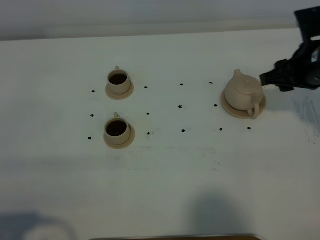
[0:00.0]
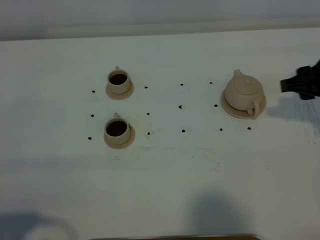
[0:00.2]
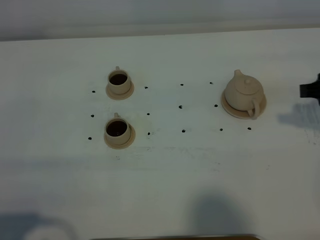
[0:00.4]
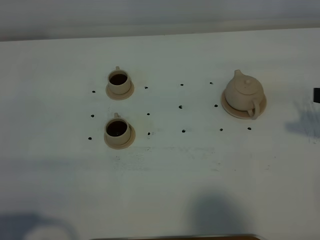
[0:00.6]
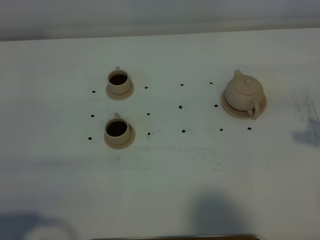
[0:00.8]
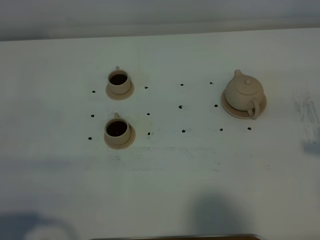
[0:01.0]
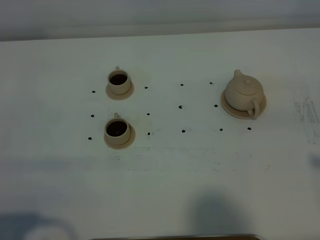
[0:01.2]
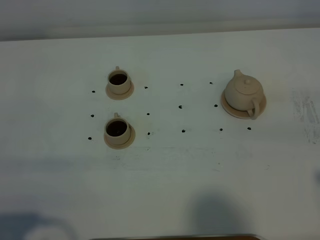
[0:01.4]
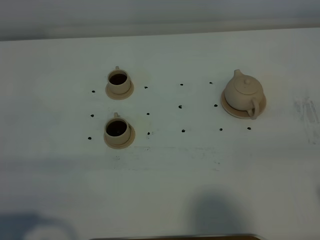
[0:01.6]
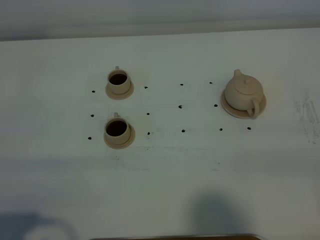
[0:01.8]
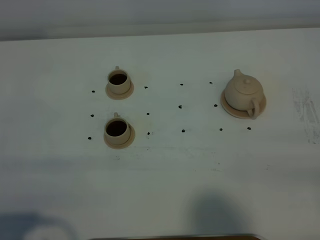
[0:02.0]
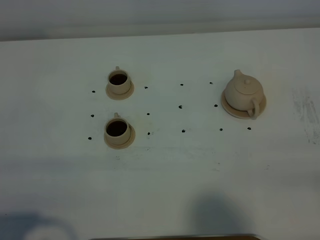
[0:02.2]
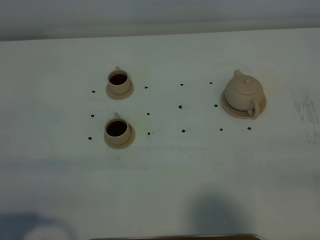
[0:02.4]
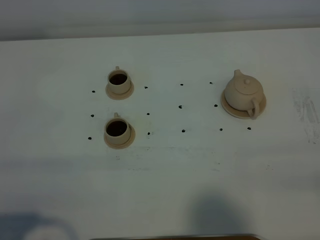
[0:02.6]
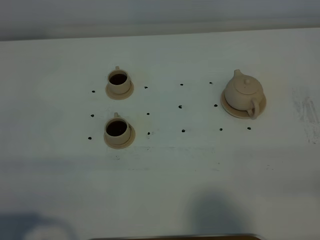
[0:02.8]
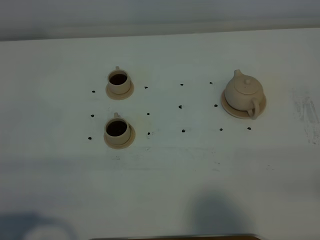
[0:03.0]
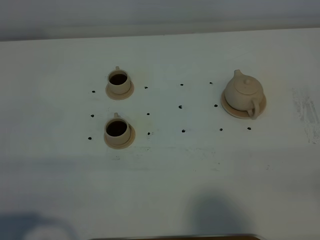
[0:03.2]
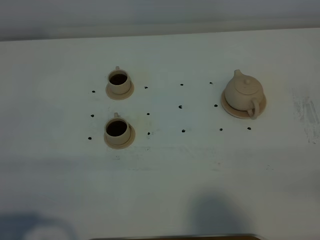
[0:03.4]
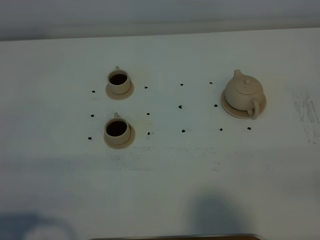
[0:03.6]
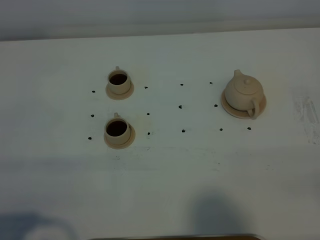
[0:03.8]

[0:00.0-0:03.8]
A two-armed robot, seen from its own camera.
Task of the whole recording: grasp the brown teapot and pour the tea into the two brown teacups one by one, put the brown teapot back in its original place.
0:00.0 to 0:01.2: The right gripper heads backward and upward, covering approximately 25 cm.

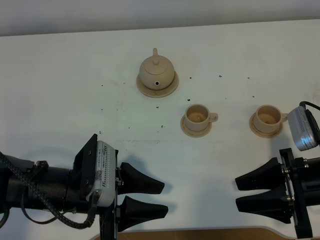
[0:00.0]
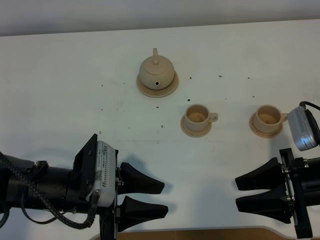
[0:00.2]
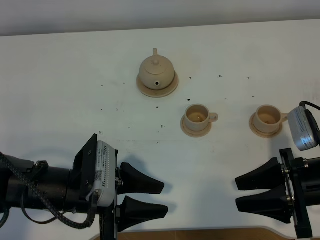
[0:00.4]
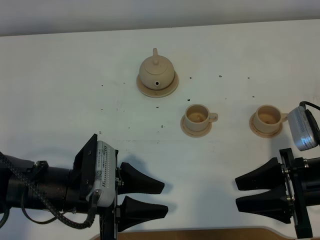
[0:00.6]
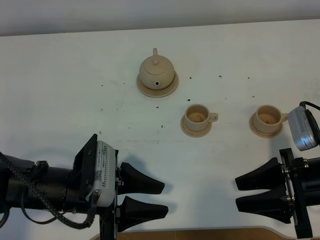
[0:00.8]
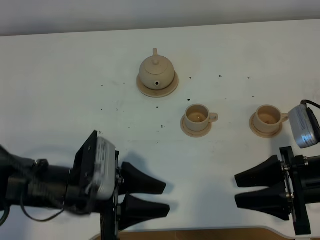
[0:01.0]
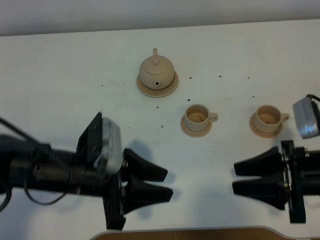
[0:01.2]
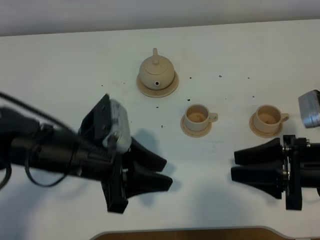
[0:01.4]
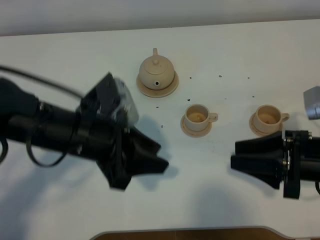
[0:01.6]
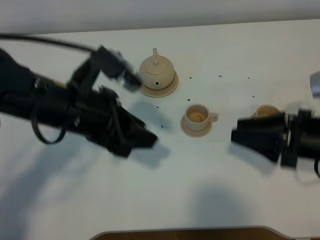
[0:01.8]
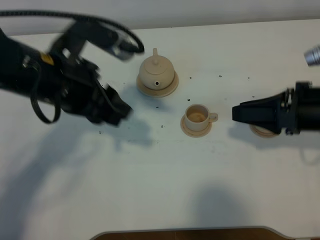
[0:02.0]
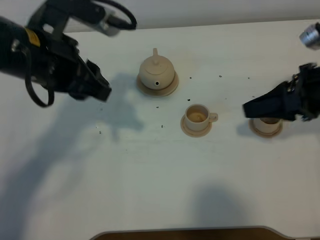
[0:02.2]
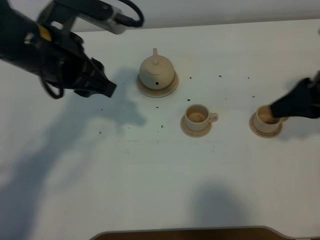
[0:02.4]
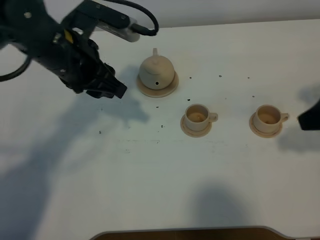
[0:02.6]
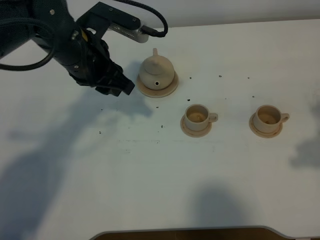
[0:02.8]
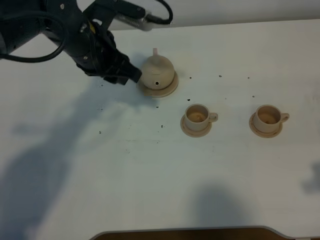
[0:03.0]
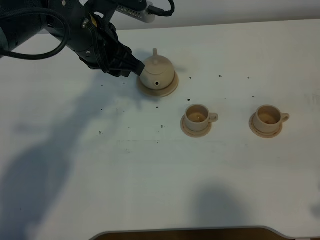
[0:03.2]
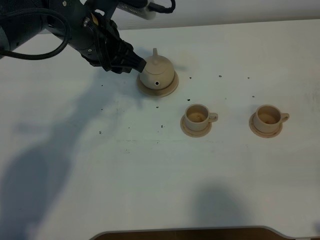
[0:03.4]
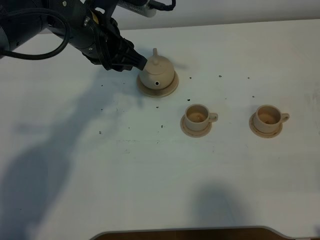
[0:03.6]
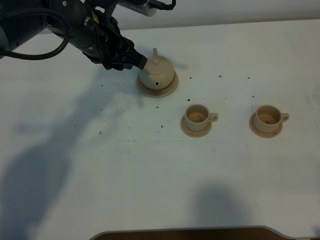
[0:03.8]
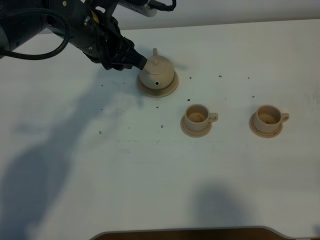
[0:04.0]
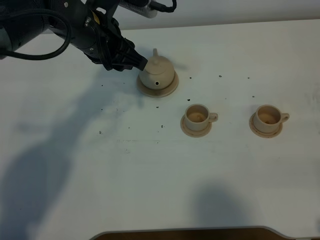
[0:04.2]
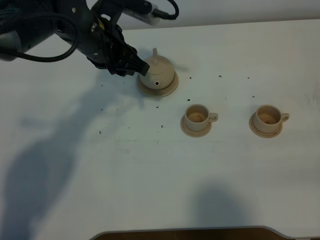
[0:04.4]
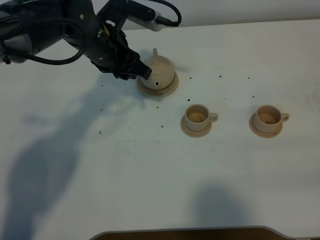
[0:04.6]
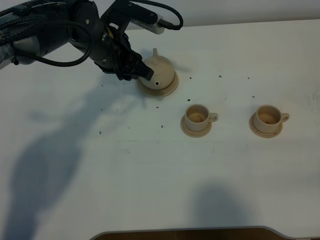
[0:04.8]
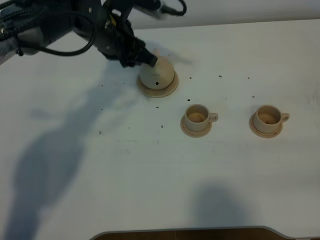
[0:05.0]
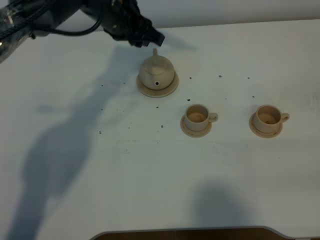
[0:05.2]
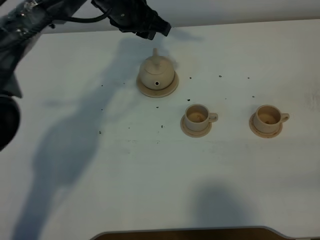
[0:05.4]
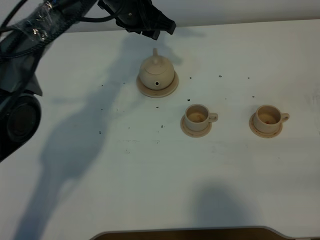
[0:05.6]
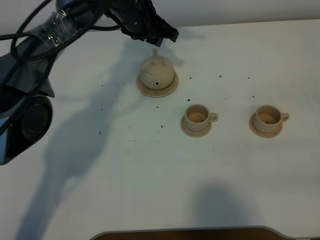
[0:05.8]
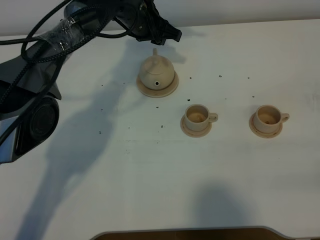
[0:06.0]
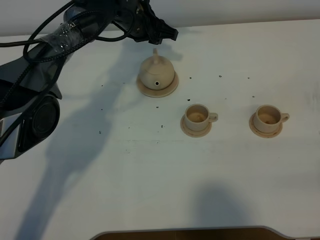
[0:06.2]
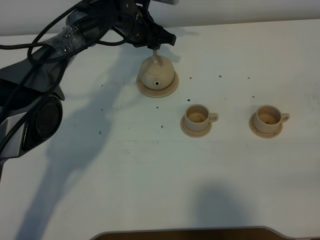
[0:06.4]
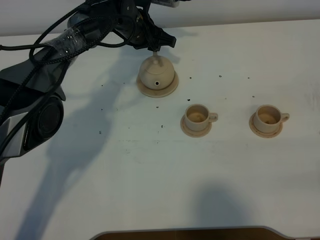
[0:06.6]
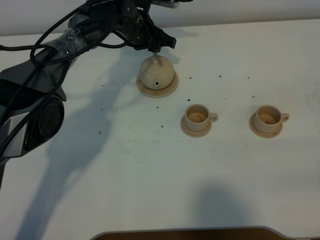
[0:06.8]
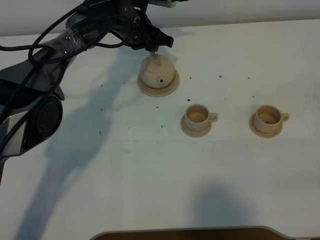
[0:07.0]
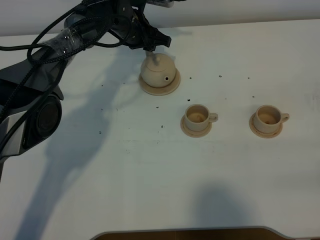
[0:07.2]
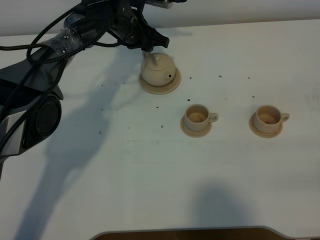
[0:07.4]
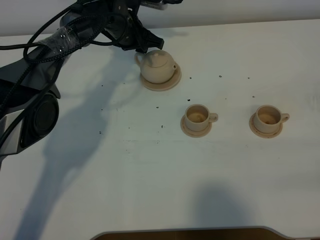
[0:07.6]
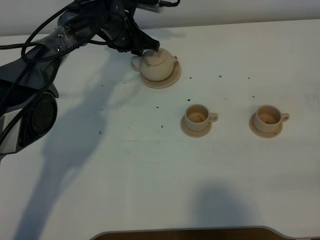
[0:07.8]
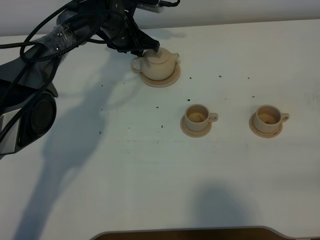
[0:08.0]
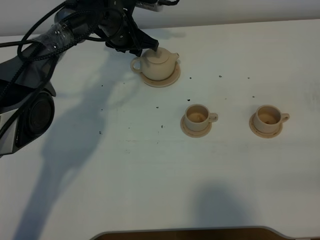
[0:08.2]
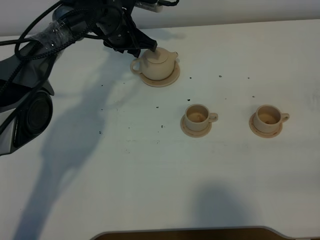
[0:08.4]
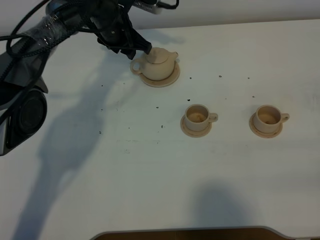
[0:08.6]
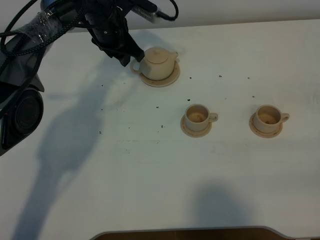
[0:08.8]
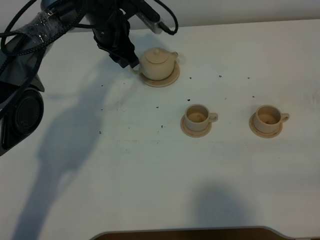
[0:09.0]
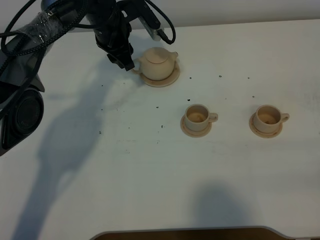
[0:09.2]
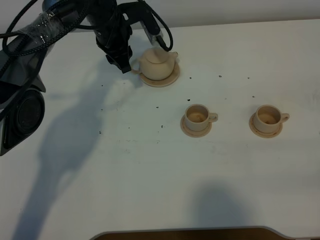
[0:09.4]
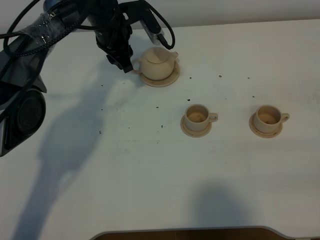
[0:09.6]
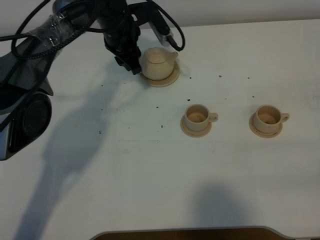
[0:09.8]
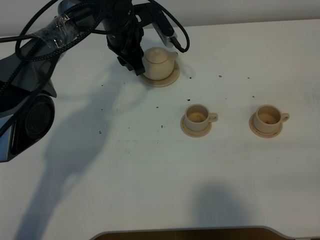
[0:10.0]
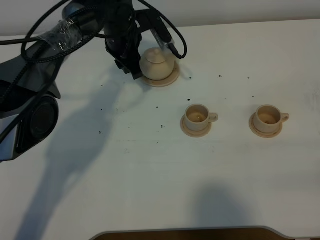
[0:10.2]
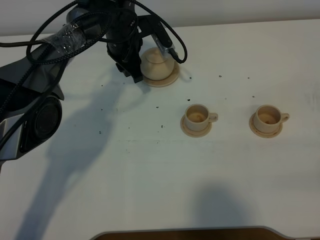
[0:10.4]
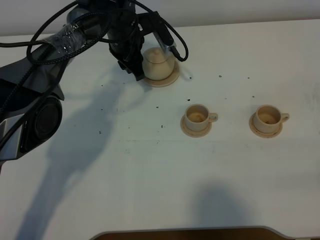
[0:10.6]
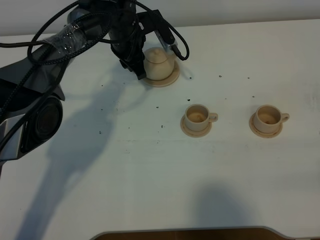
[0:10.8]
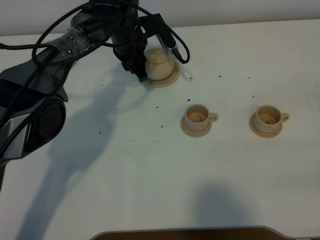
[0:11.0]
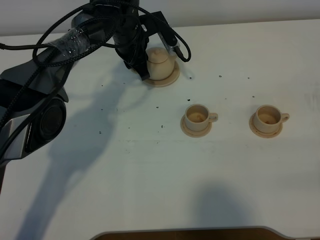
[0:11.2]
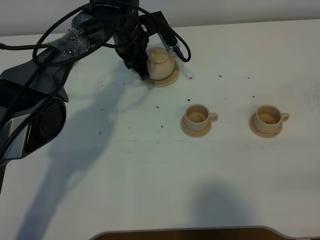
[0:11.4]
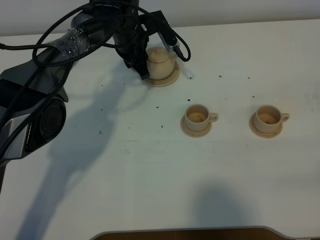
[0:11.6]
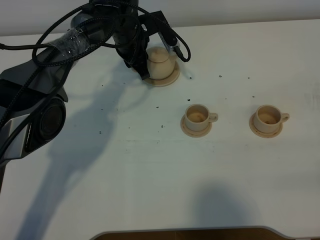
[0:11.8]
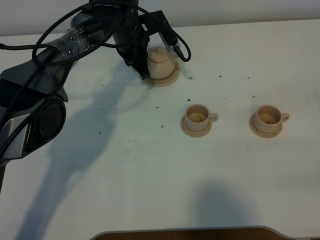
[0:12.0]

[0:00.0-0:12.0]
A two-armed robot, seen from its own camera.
Task of the whole recording: grasp the brown teapot and pour the tea into the two brown teacups one by one, put the brown teapot back in its original place.
0:00.0 to 0:01.6: The left gripper is displaced upward and forward by about 10 cm.
0:01.6 to 0:03.0: The right gripper goes some 15 cm upward and backward. The left gripper shifts about 15 cm forward.
0:03.0 to 0:04.4: The right gripper is displaced backward by some 10 cm.
0:04.4 to 0:06.0: The left gripper heads forward, to the right and downward, covering some 15 cm.
0:06.0 to 0:07.6: The left gripper ends up some 5 cm from where it was.
0:07.6 to 0:09.0: The left gripper ends up roughly 5 cm from where it was.
0:09.0 to 0:10.4: There are only small adjustments of the grippers.
0:10.4 to 0:12.0: The left gripper closes its fingers.

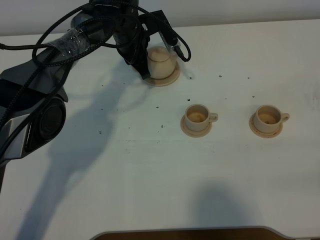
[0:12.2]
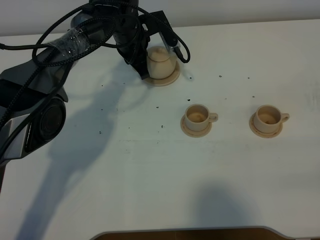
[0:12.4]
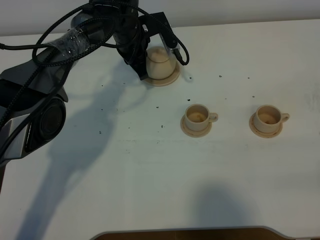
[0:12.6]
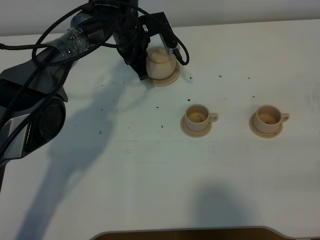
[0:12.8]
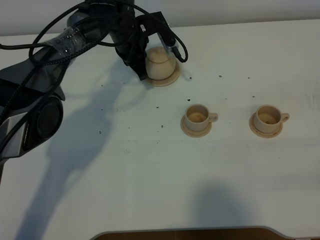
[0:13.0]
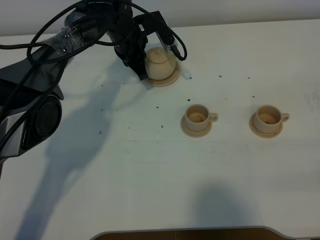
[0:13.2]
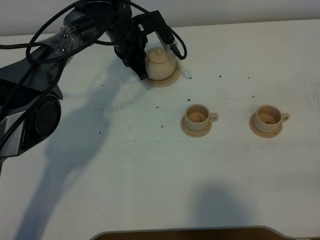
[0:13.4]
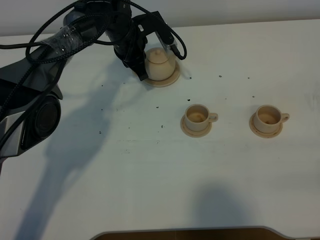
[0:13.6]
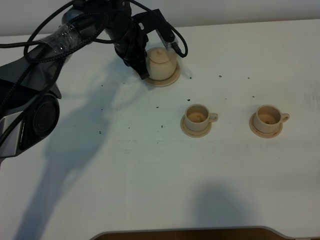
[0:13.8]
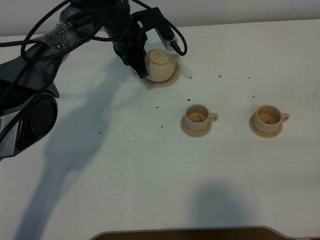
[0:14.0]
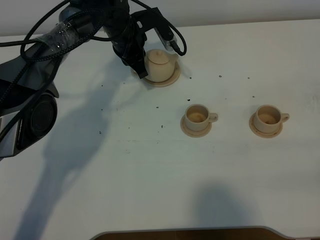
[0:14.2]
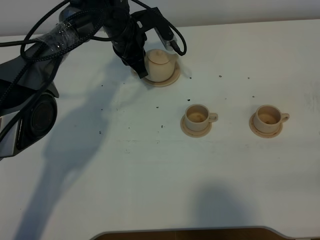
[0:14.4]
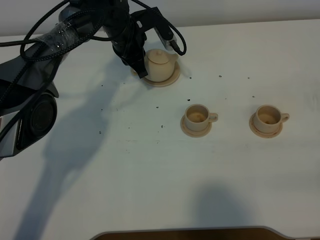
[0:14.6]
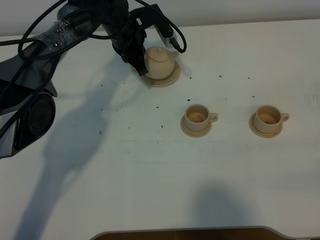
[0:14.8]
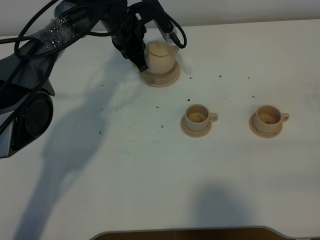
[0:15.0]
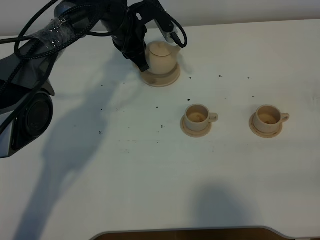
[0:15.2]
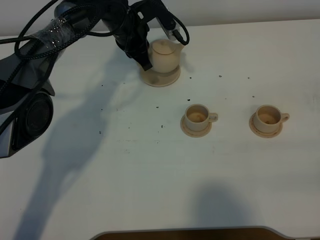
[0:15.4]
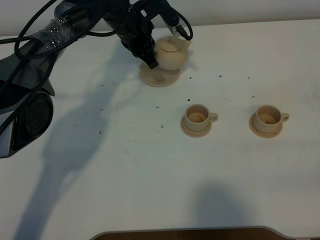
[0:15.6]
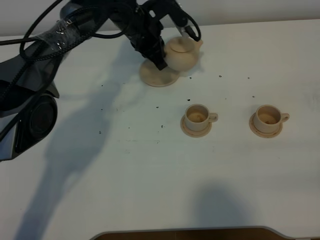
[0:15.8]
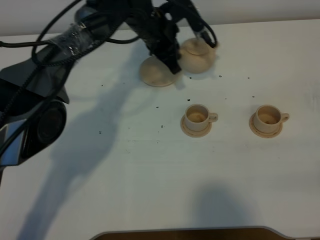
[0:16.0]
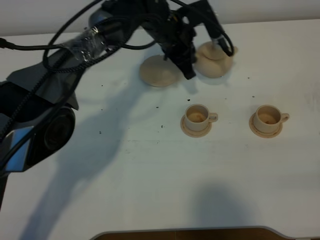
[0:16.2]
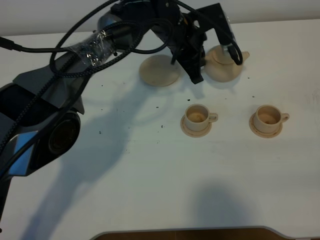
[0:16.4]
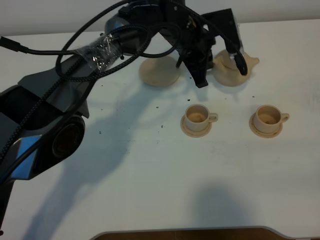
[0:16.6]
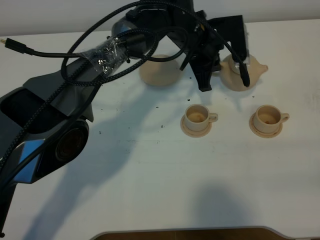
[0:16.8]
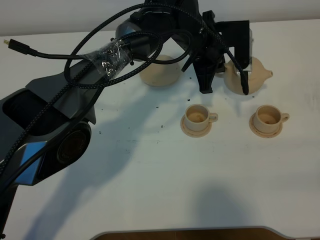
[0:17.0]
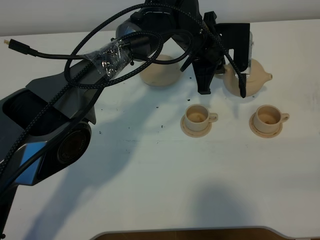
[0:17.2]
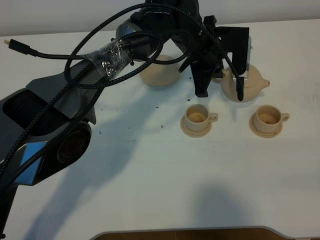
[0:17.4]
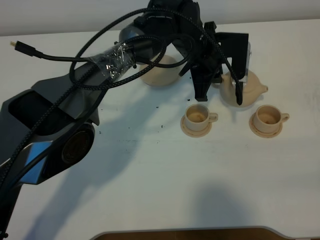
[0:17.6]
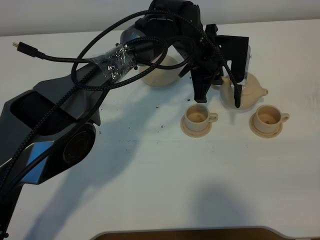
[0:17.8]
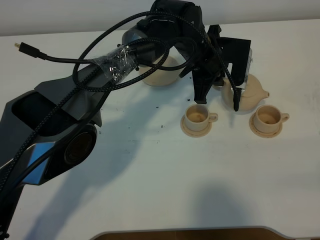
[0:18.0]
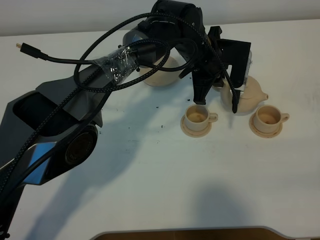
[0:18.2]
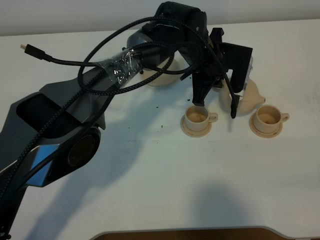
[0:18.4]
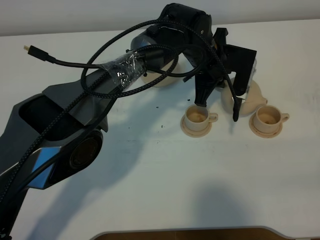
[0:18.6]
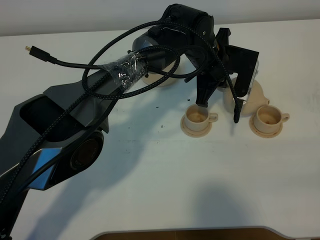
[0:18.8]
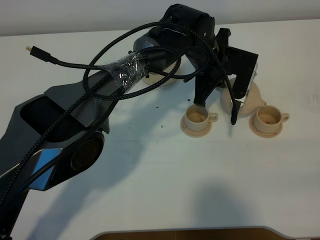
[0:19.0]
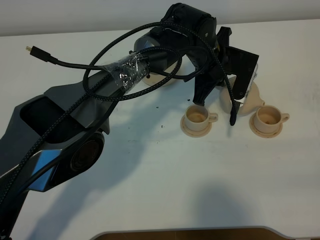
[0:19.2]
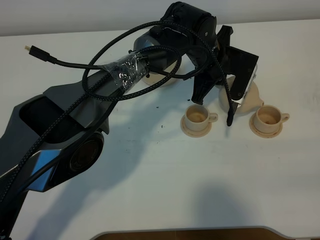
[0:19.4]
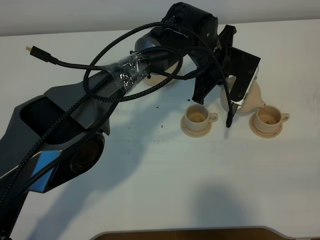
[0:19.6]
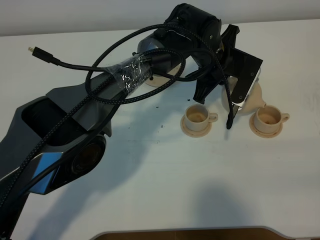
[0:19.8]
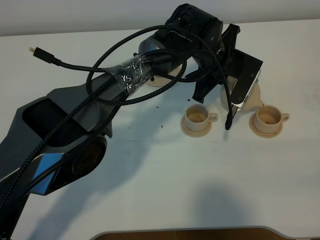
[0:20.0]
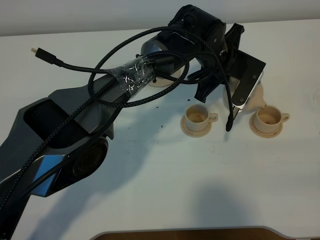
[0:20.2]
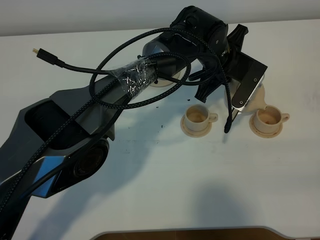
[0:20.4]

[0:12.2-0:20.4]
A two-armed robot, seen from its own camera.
Task of the whole recording: grasp the brown teapot and pour the tea into the two brown teacups one by one, put the brown teapot back in its original place.
Step, 0:12.2 to 0:15.0: Pick up the teapot with the left gripper.
0:12.2 to 0:15.4: The grippers stay close to where they were, moving slightly.
0:15.4 to 0:17.2: The left gripper is displaced to the right and backward by some 15 cm.
0:18.8 to 0:20.4: The grippers move only a little.
